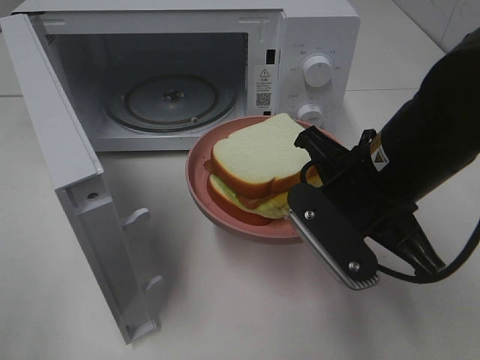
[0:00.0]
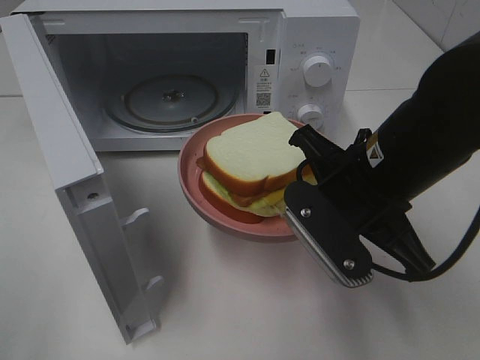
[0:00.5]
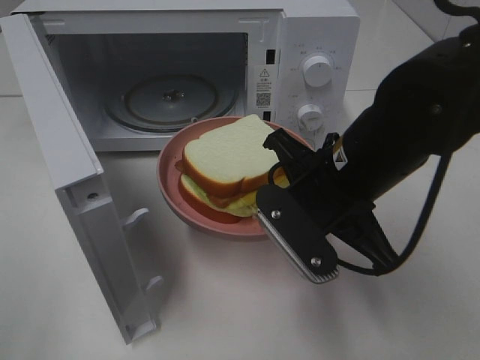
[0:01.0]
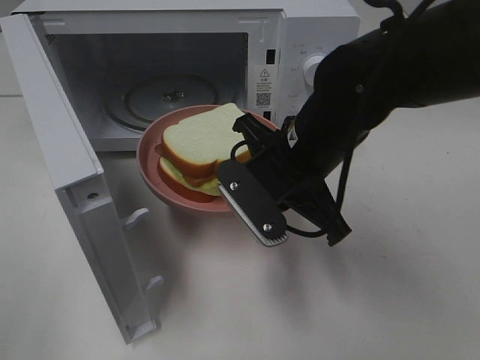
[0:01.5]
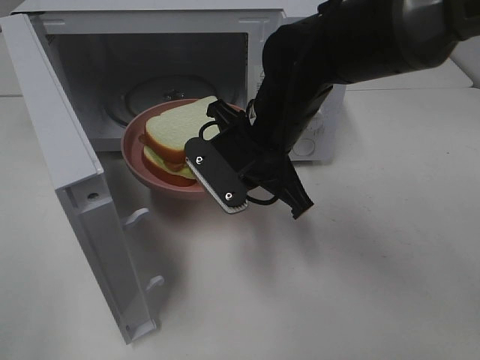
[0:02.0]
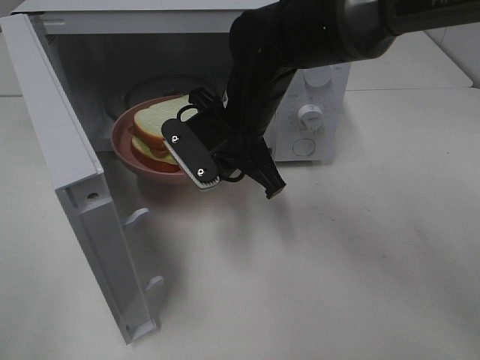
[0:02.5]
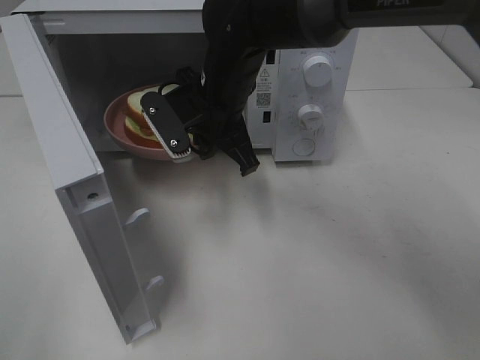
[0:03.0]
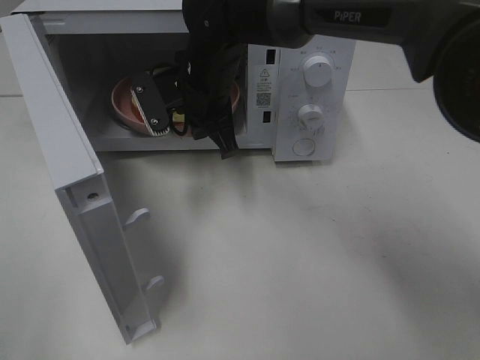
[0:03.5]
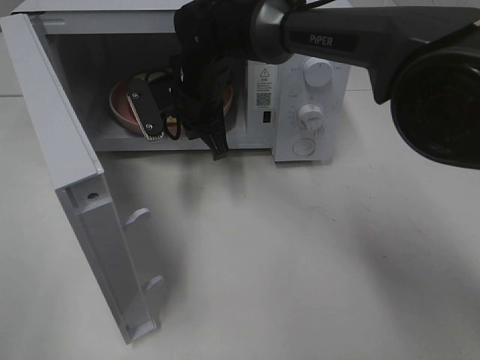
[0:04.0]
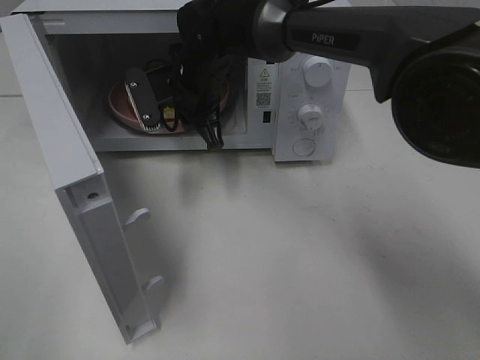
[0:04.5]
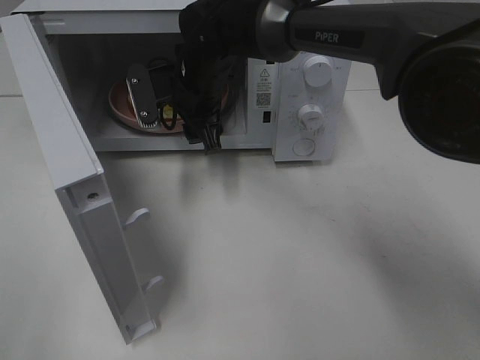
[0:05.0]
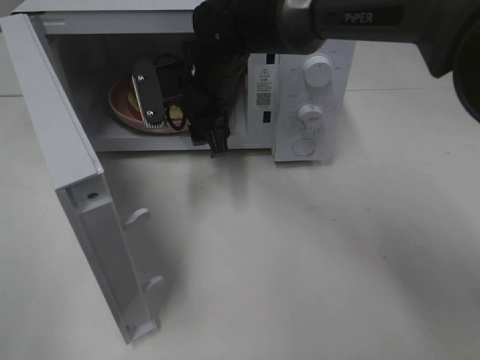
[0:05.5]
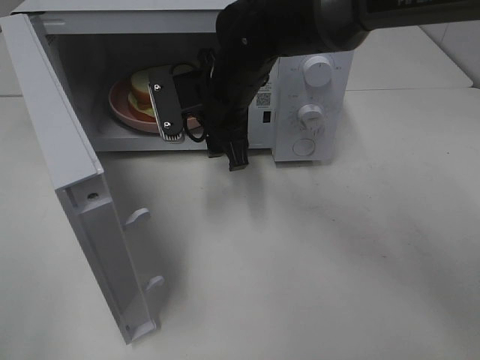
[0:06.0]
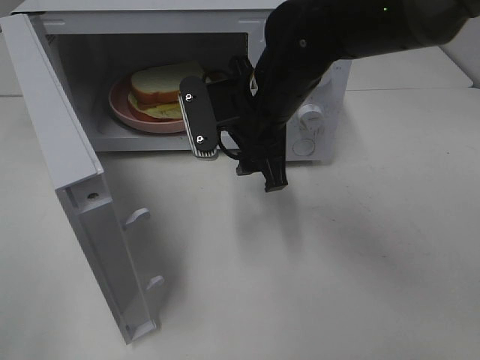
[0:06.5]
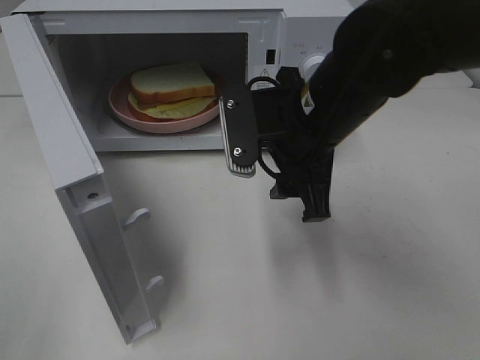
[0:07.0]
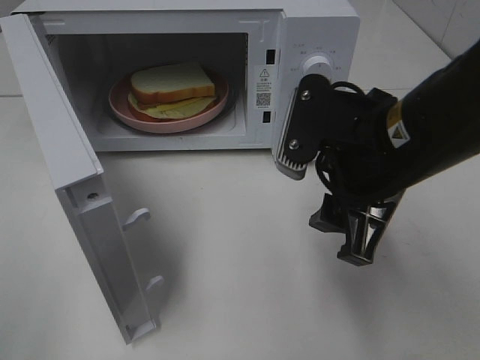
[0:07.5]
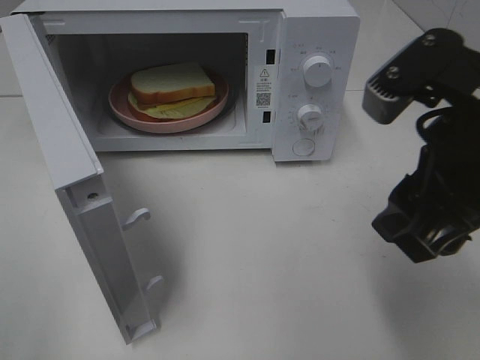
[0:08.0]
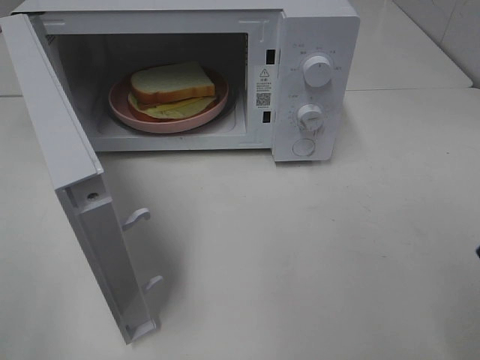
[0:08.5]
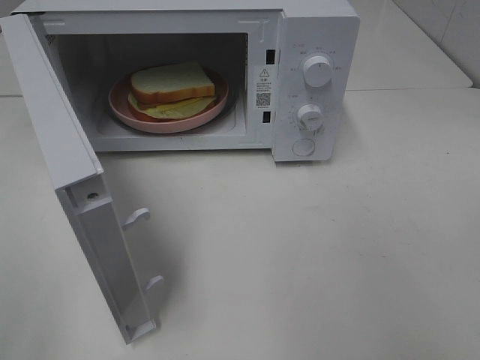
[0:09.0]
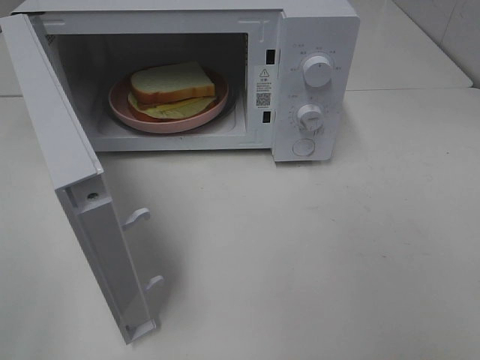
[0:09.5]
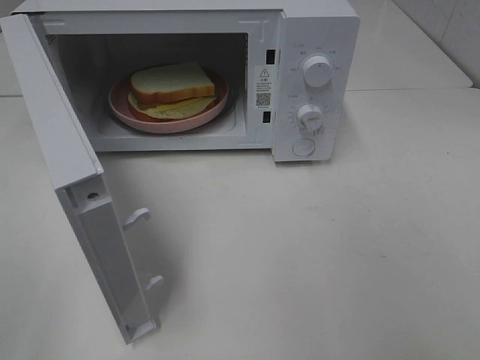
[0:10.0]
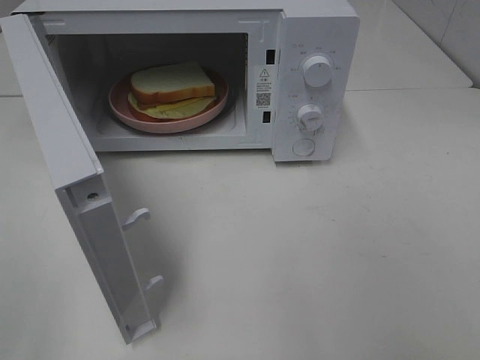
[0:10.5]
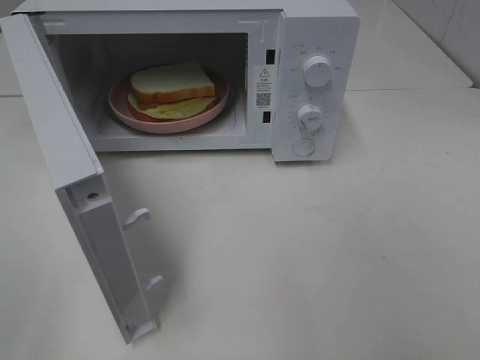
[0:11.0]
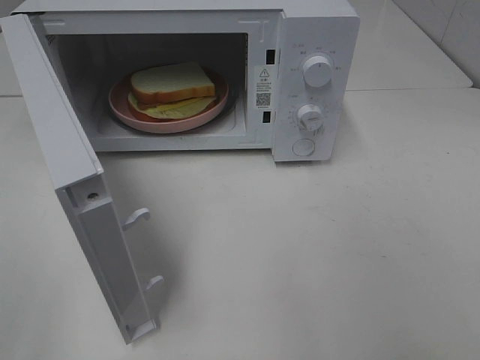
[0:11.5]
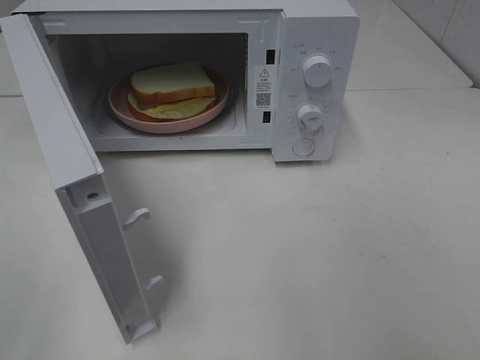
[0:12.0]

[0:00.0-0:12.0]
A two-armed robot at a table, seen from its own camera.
Task of the whole recording: Heat Sandwich.
Step, 0:00.0 to 0:04.5: Right hand: place the plate in the microwave.
0:00.0 to 0:02.0: The right gripper moves forward and to the left, roughly 15 cm.
0:02.0 to 0:04.0: The right gripper travels forward and to the left by approximately 15 cm.
0:04.0 to 0:06.0: The right gripper changes place by roughly 5 cm, and opens.
0:06.0 to 0:08.0: The right gripper shifts about 30 cm backward, to the right and upward.
0:08.0 to 0:10.0: The right gripper shifts approximately 20 cm backward and to the right.

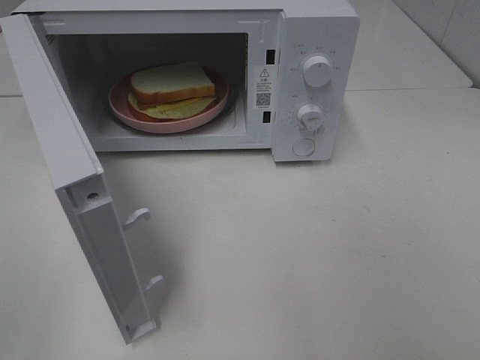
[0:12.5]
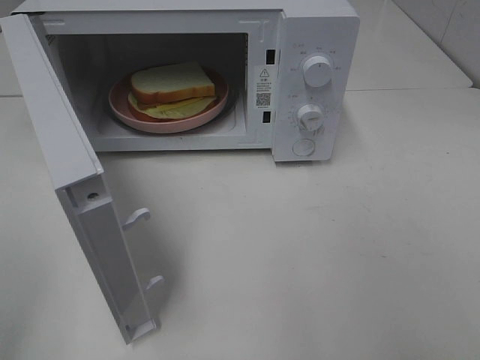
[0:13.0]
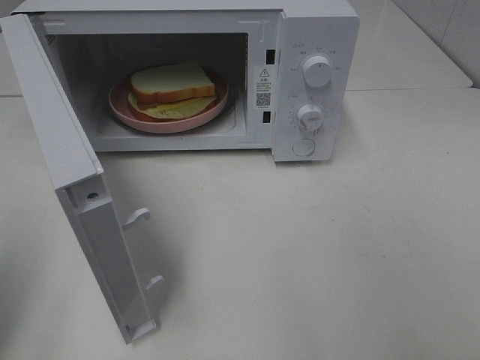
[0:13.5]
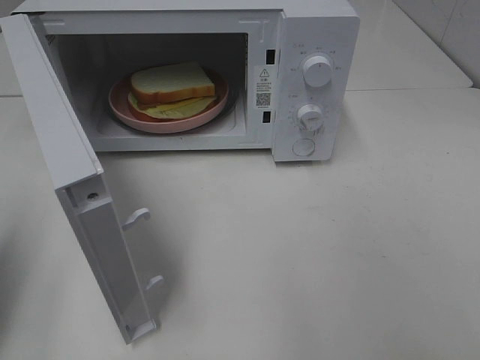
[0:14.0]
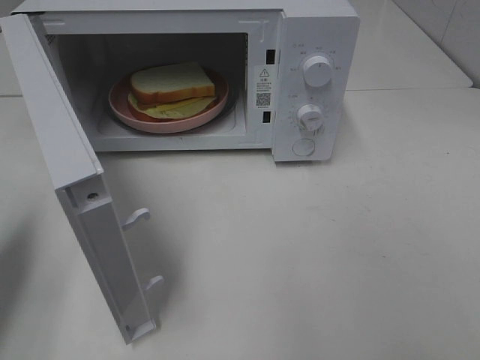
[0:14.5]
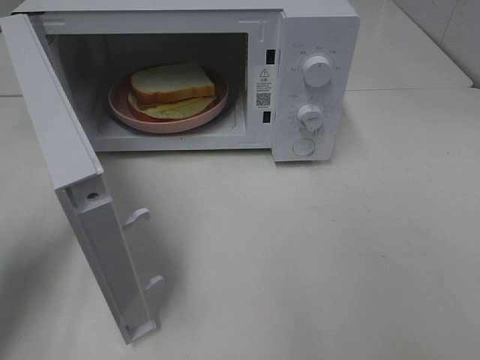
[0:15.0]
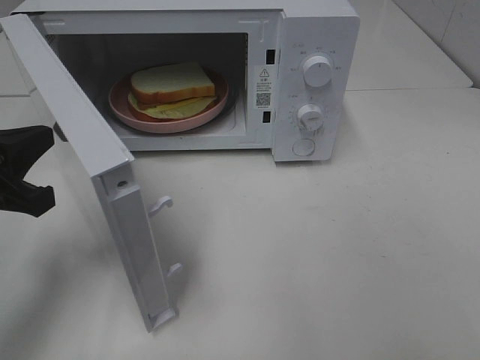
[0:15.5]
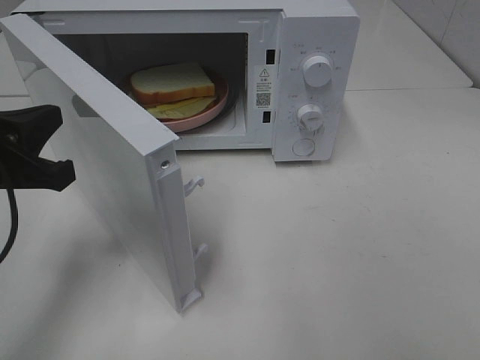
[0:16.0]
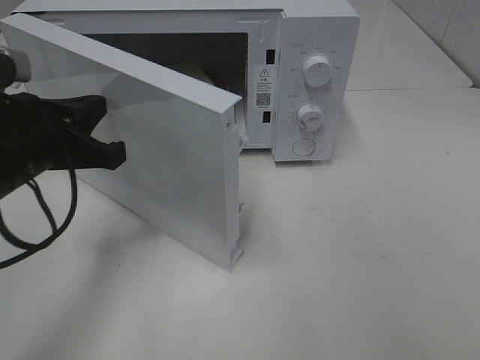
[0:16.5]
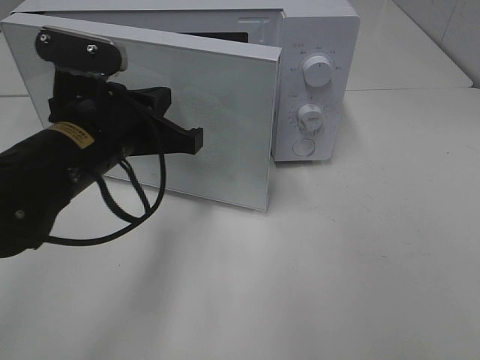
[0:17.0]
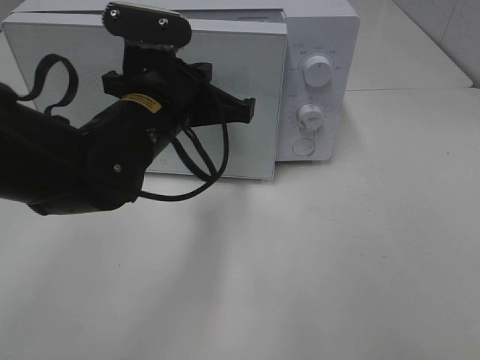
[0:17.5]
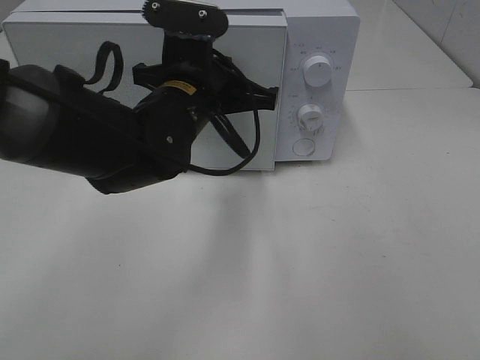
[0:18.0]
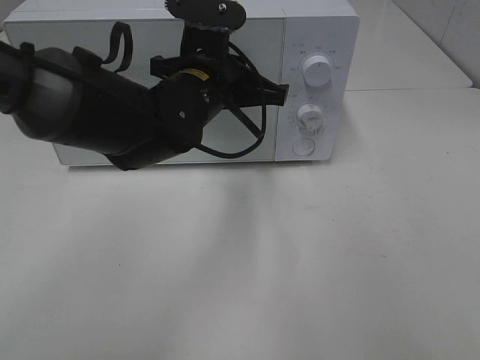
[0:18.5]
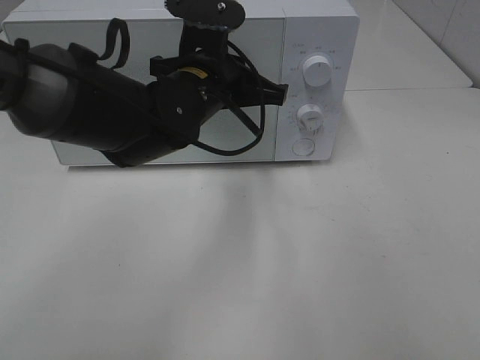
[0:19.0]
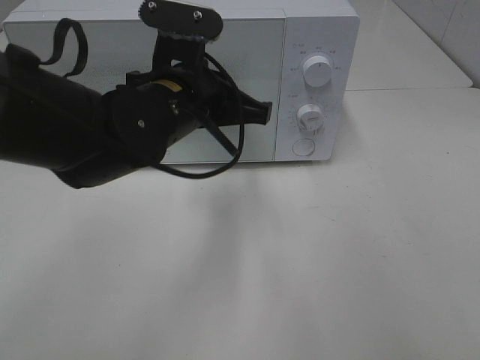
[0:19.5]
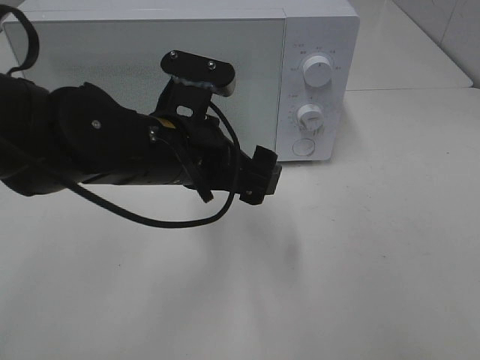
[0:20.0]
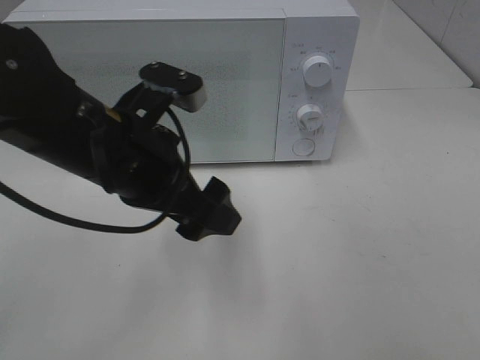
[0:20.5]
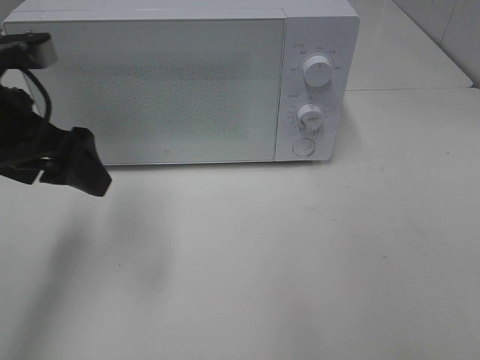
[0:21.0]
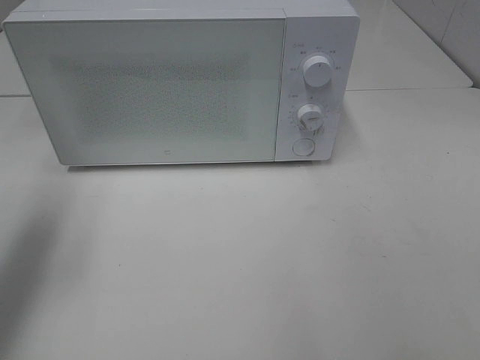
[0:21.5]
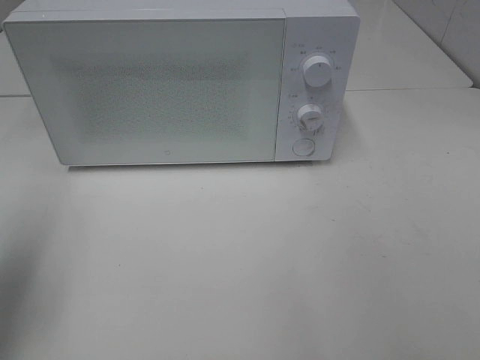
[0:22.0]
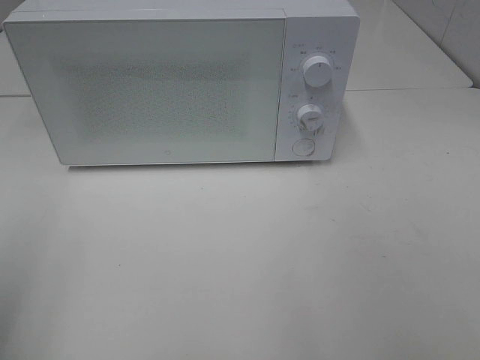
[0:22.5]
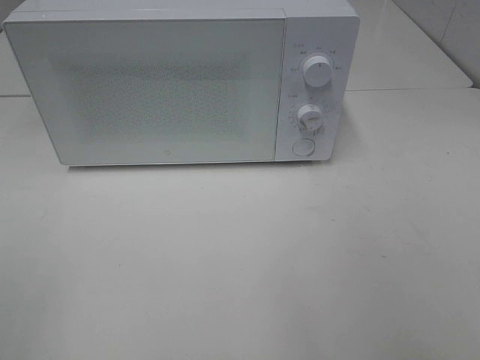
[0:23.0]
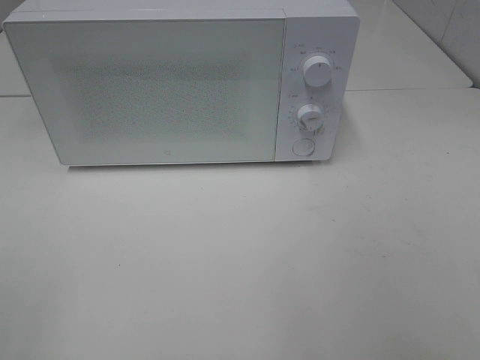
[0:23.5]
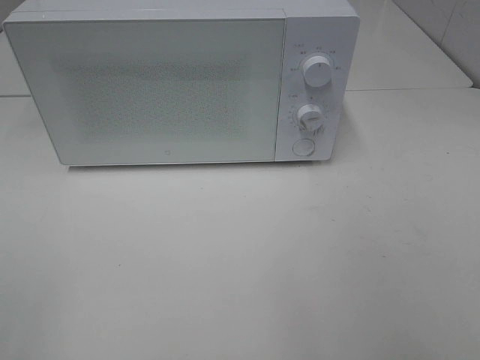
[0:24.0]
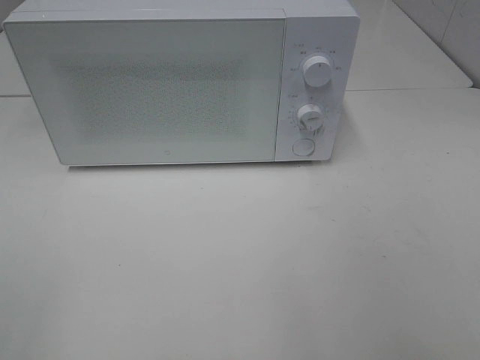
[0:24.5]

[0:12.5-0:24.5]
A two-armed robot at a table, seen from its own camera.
Task of the whole recording: Heat Sandwich.
Step, 0:12.5 to 0:19.0: Left hand: close the microwave door.
0:12.5 to 0:14.5: The left gripper is displaced forward by some 20 cm, and closes its fingers.
0:14.5 to 0:16.5: The left gripper is displaced to the right by about 15 cm.
0:16.5 to 0:18.5: The left gripper is displaced to the right and forward by roughly 20 cm.
0:18.5 to 0:20.5: The left gripper heads backward and to the left, covering approximately 10 cm, and opens up.
0:20.5 to 0:22.5: The left gripper shifts about 25 cm to the left and backward.

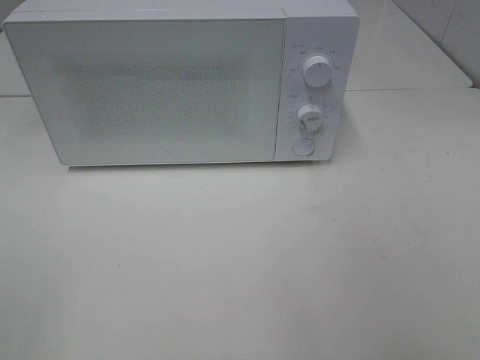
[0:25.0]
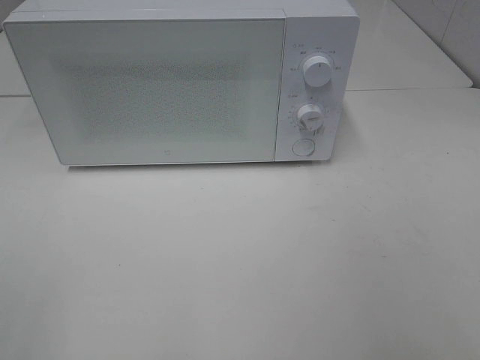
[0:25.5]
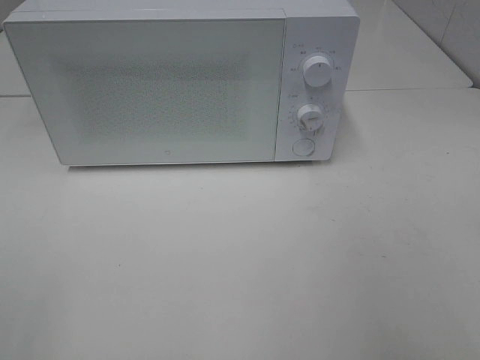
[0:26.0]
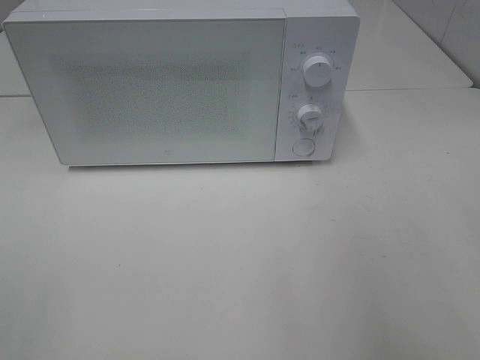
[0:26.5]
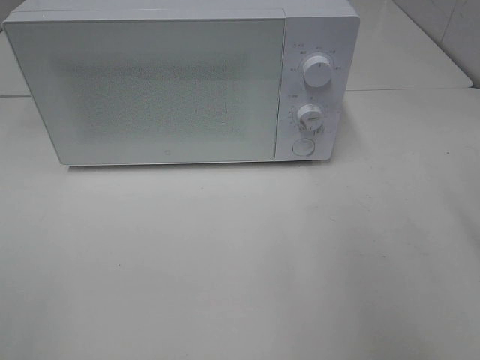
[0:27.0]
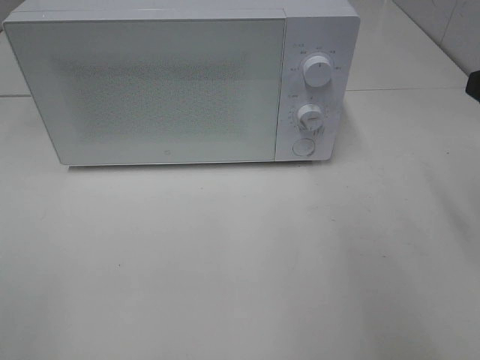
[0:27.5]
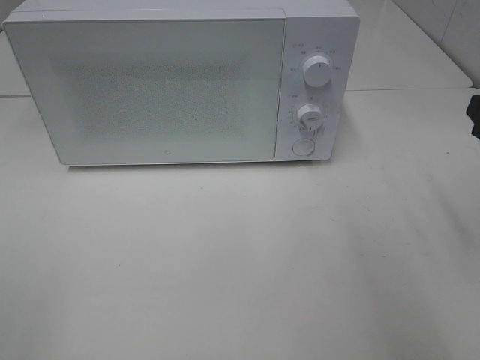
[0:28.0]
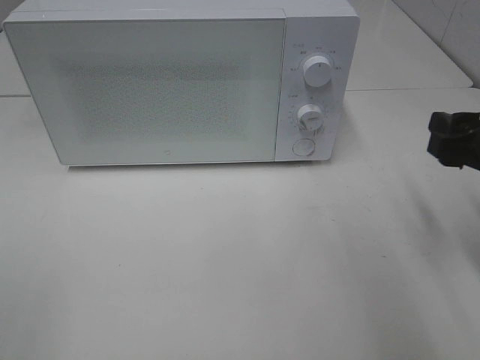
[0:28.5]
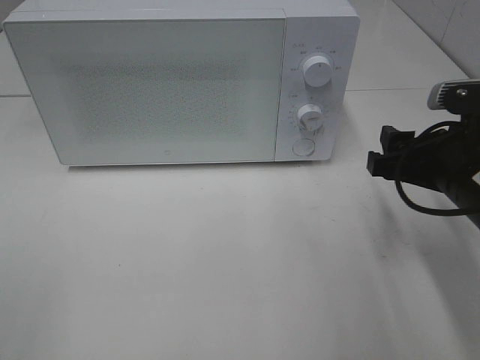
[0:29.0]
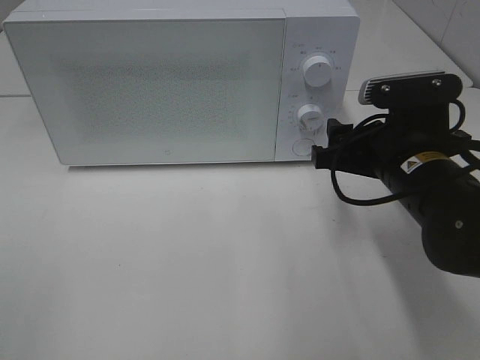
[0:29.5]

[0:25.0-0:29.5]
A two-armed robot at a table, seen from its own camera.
Task of the whole recording: Heat Sandwich.
0:27.0 to 0:29.5: The right gripper is displaced downward, to the left and forward by some 20 cm.
